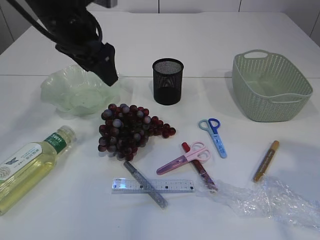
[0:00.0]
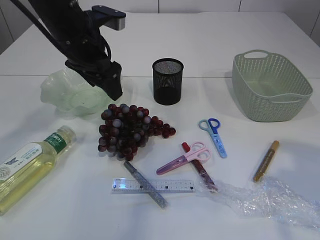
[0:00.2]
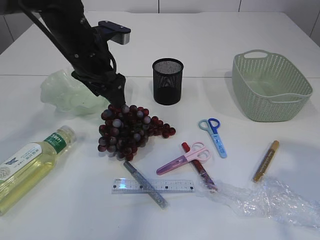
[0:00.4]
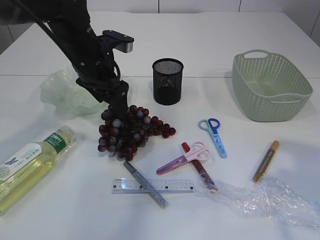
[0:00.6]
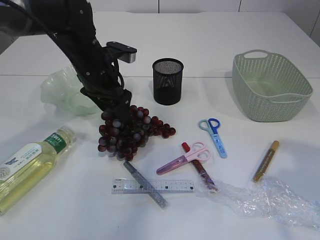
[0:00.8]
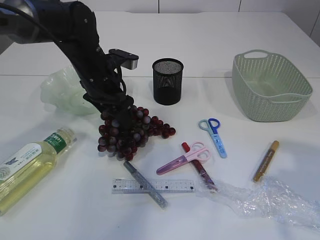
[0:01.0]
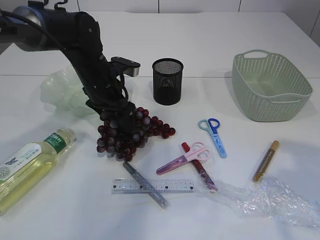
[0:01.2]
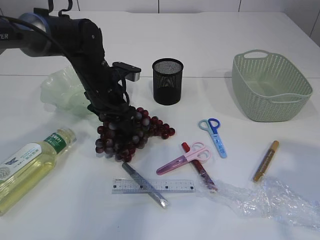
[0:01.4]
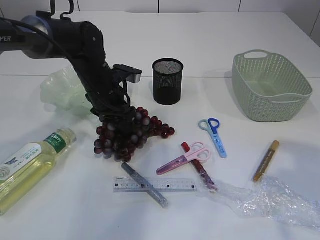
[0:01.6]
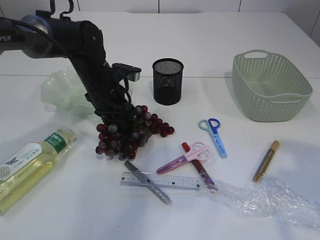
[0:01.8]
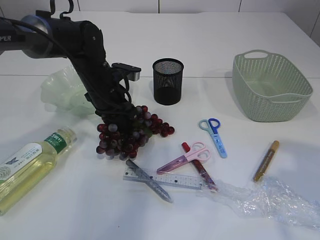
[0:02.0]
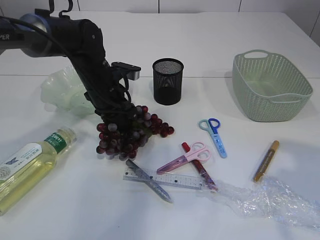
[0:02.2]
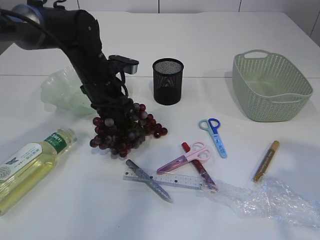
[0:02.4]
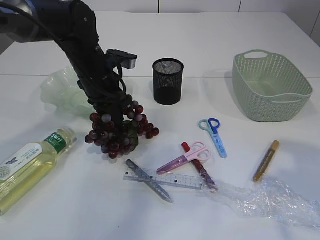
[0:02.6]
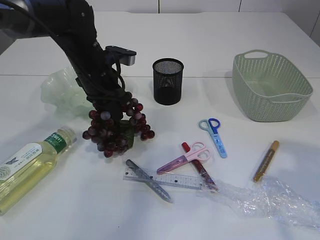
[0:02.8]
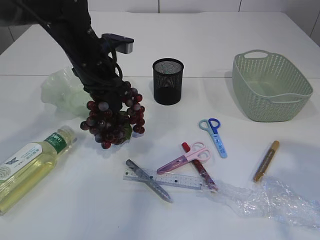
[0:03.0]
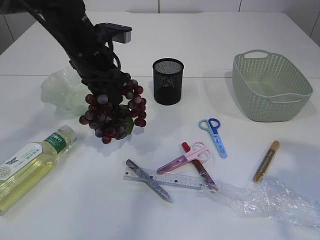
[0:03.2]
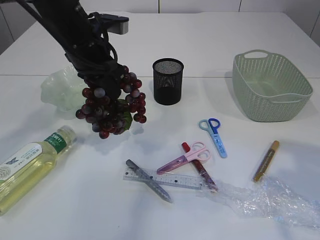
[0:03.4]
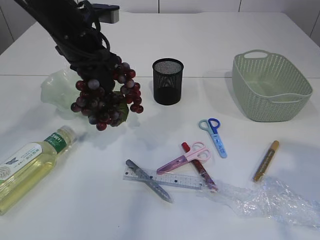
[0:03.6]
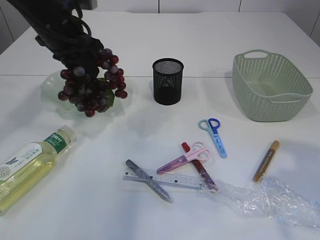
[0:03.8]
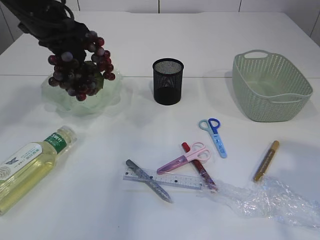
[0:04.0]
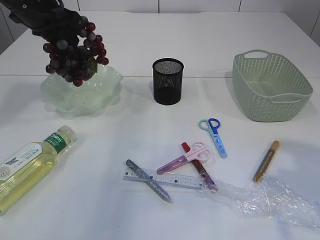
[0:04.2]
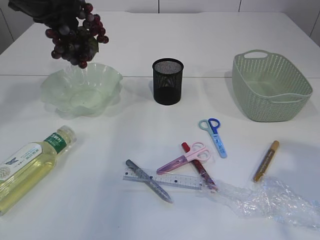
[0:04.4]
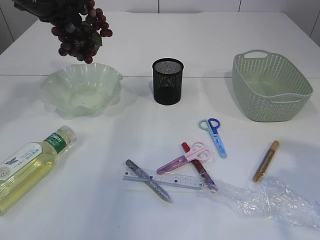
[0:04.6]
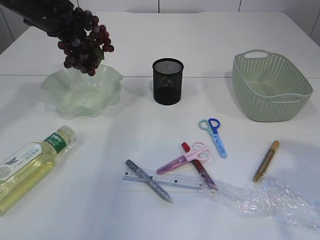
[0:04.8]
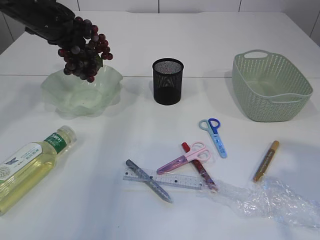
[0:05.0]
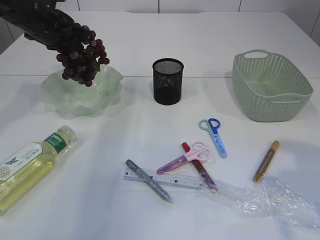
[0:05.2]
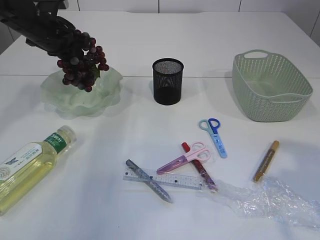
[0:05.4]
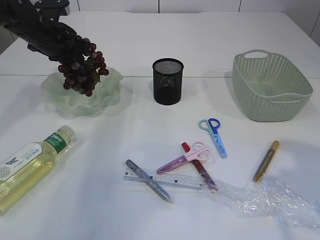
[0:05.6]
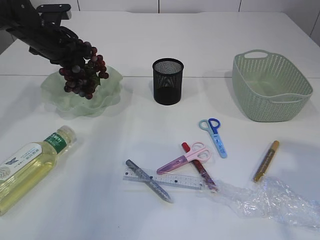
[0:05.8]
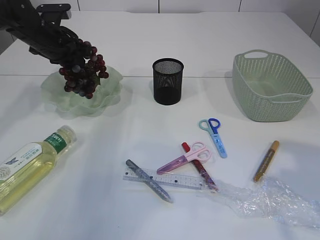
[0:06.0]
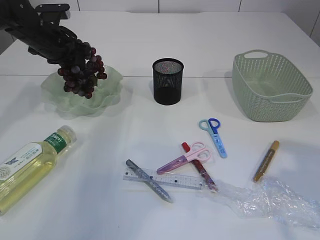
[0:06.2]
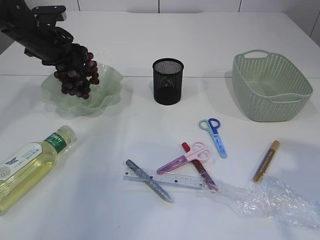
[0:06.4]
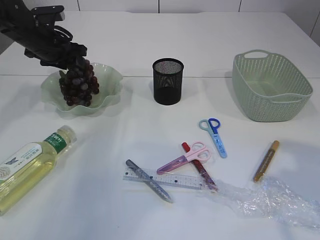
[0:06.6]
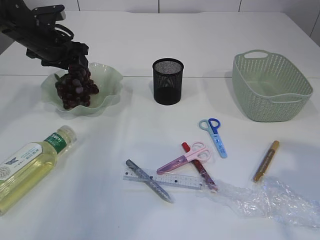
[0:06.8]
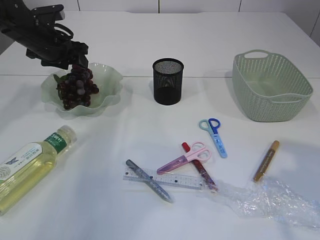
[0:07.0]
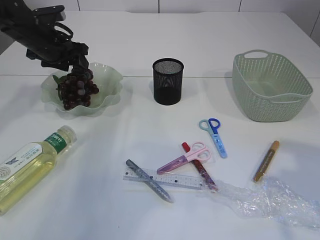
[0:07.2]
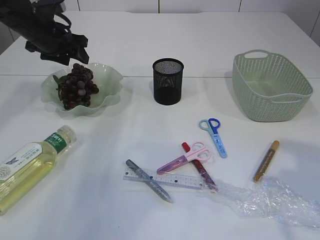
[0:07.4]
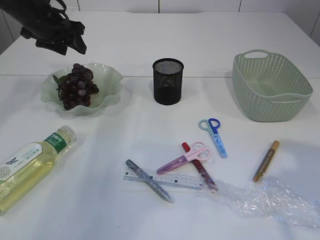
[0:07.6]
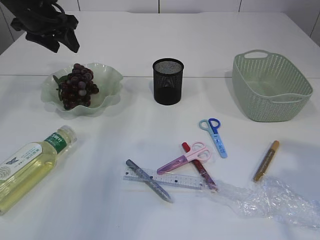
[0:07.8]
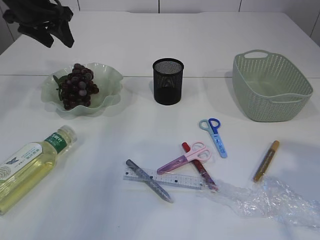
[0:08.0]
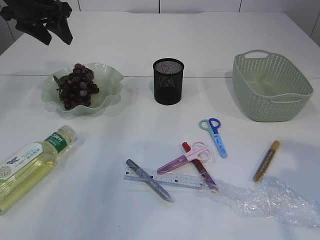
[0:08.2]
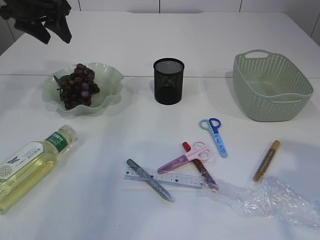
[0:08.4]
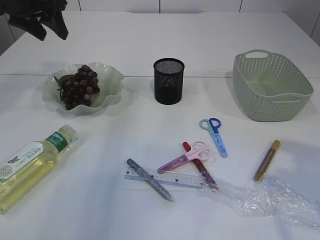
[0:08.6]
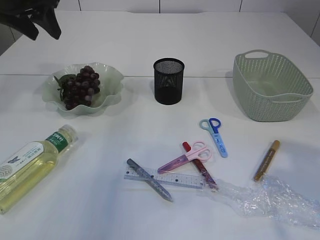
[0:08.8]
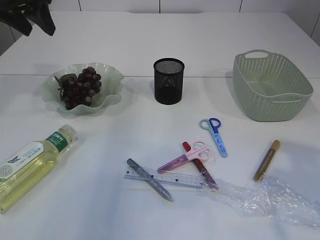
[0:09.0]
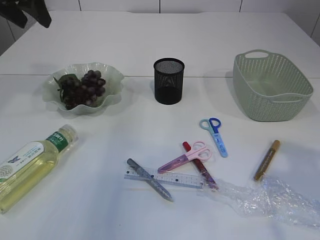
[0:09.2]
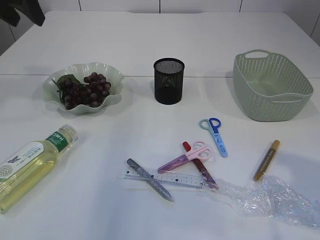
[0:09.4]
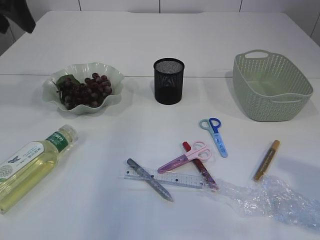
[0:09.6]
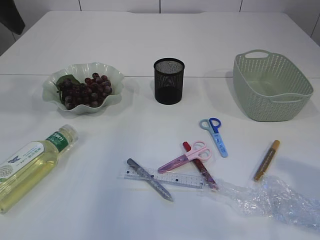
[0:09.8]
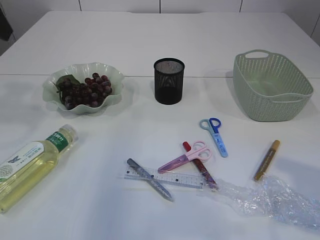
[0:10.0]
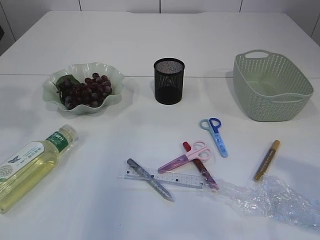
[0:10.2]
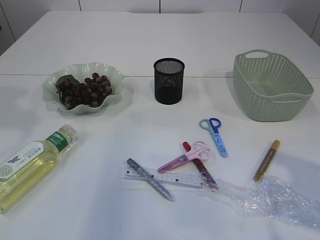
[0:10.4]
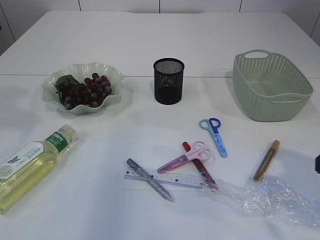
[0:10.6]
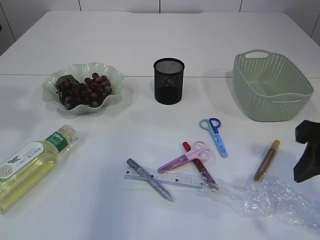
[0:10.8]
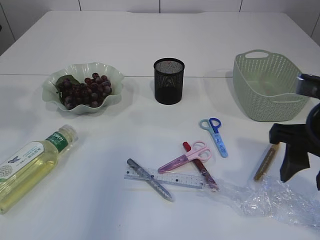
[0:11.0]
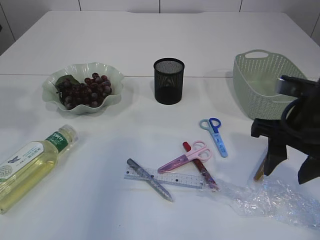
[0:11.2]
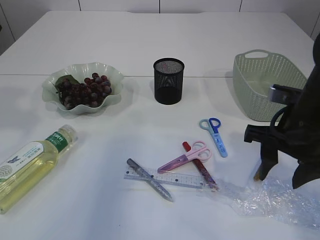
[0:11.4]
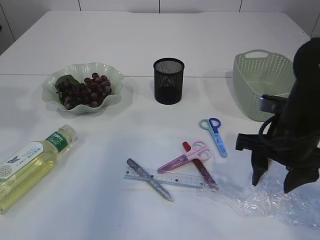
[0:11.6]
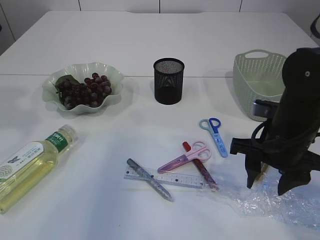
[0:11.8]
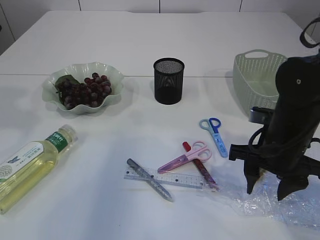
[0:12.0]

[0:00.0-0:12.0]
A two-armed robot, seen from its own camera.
Step, 0:00.0 to 0:03.4: Pick up the grapes.
Step, 0:03.6 to 0:07.4: Place the grapes in the plate.
0:00.0 to 0:01.6: The left gripper is displaced downward by approximately 15 cm.
0:01.6 to 0:03.0: The left gripper shifts some 5 cm upward, and closes.
0:03.0 to 0:04.4: The left gripper shifts roughly 15 cm upward and to the left.
0:04.4 to 0:06.0: The left gripper travels downward and forward by about 10 cm.
0:06.0 to 0:07.6: The left gripper opens.
0:07.6 to 0:09.0: The left gripper goes roughly 10 cm upward and backward.
0:09.0 to 0:10.4: The left gripper moves backward, some 15 cm.
0:10.4 to 0:12.0: The right gripper moves downward, forward and to the left, roughly 20 cm.

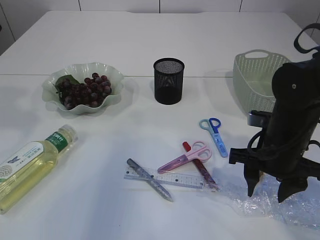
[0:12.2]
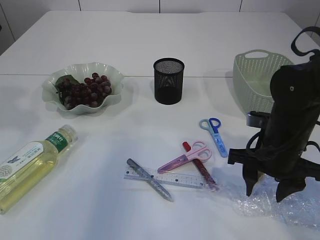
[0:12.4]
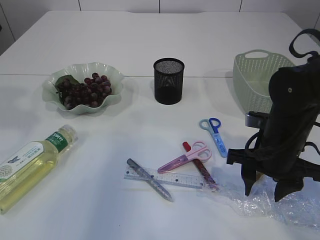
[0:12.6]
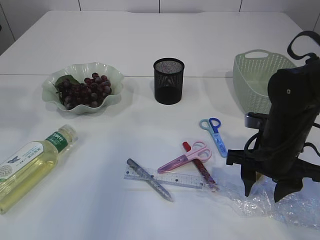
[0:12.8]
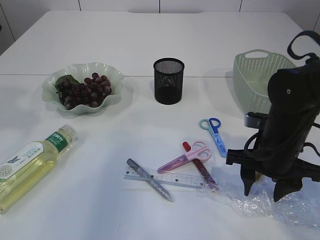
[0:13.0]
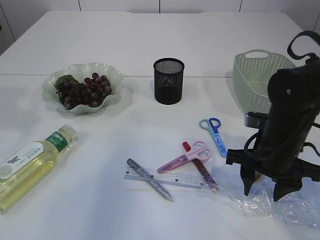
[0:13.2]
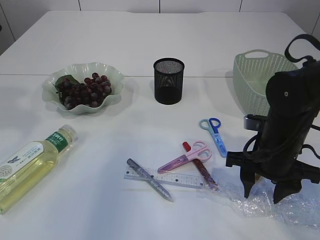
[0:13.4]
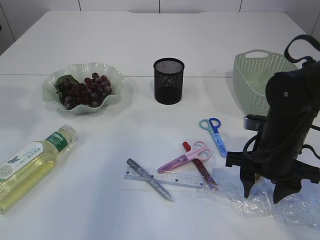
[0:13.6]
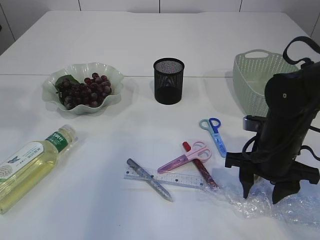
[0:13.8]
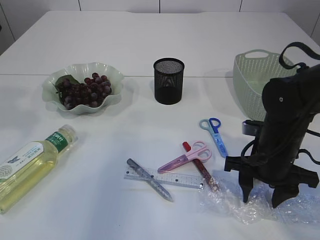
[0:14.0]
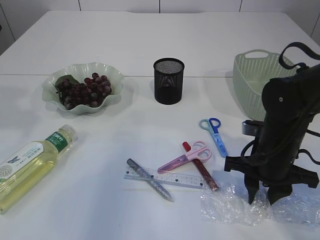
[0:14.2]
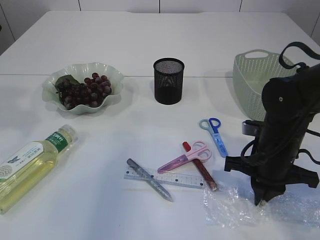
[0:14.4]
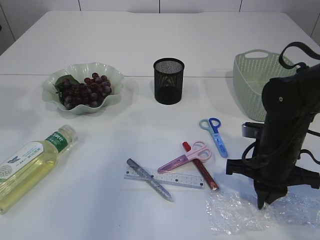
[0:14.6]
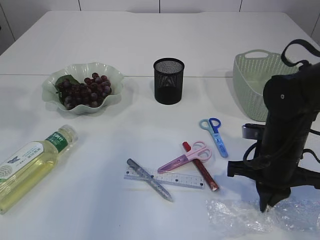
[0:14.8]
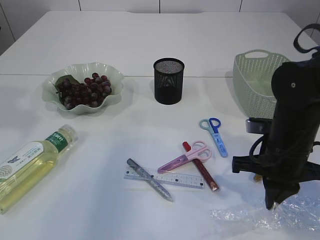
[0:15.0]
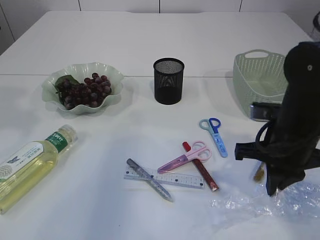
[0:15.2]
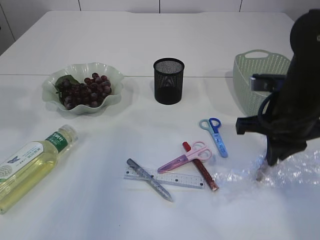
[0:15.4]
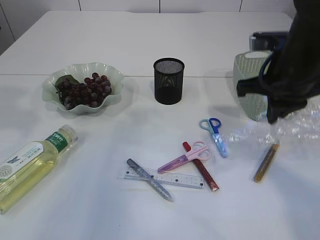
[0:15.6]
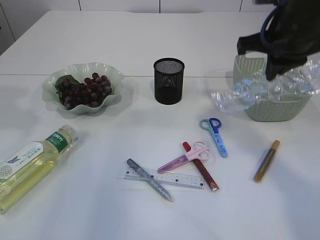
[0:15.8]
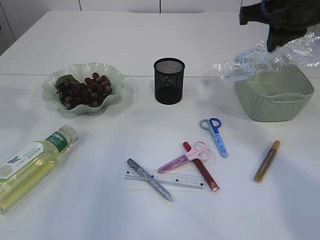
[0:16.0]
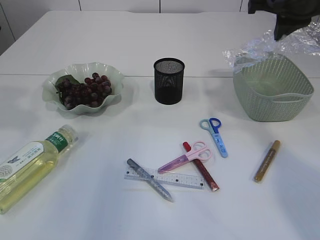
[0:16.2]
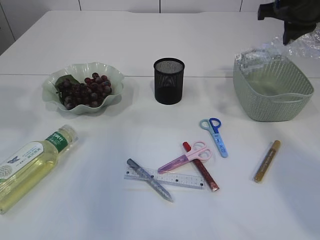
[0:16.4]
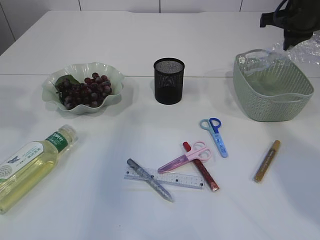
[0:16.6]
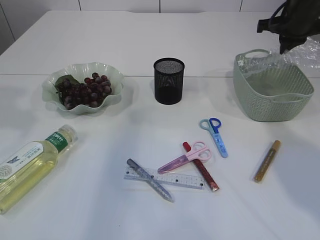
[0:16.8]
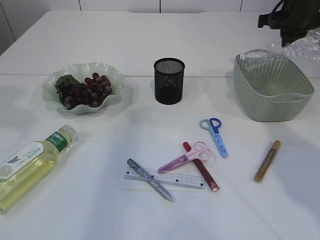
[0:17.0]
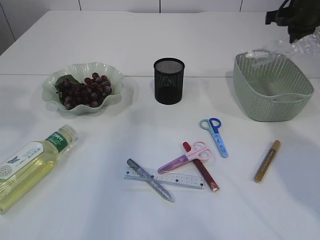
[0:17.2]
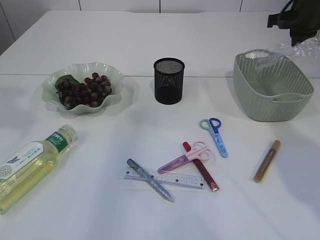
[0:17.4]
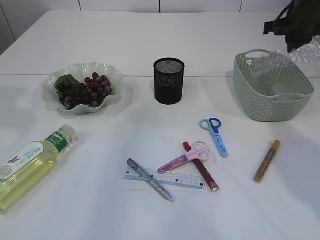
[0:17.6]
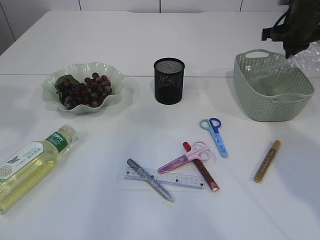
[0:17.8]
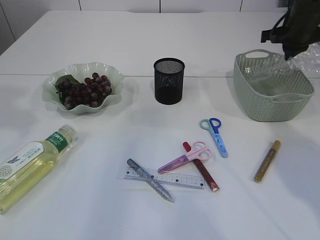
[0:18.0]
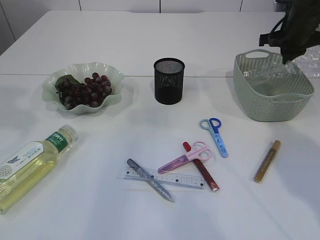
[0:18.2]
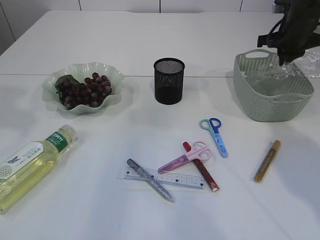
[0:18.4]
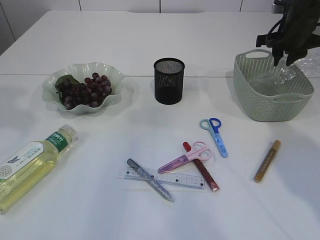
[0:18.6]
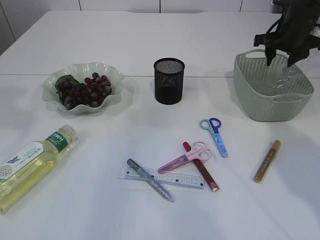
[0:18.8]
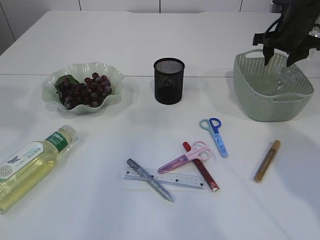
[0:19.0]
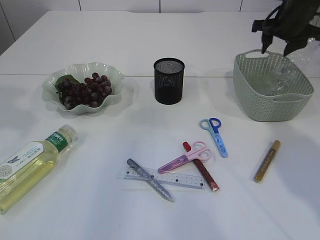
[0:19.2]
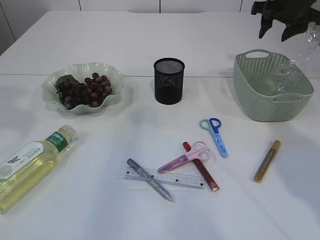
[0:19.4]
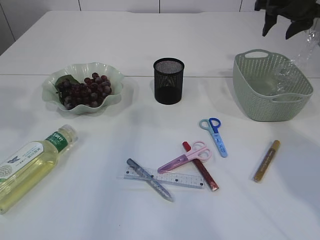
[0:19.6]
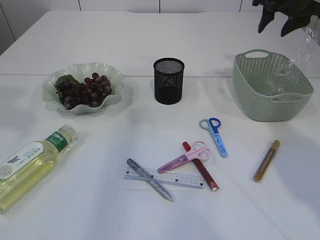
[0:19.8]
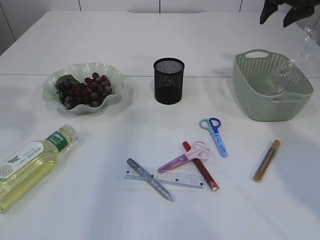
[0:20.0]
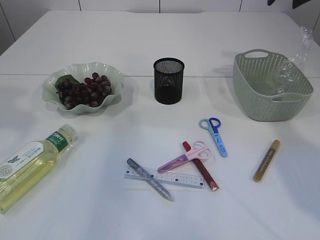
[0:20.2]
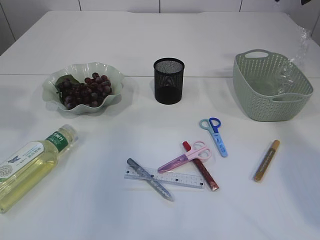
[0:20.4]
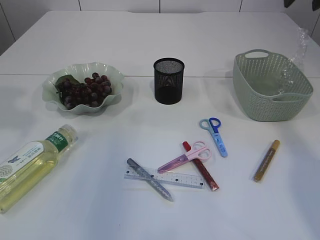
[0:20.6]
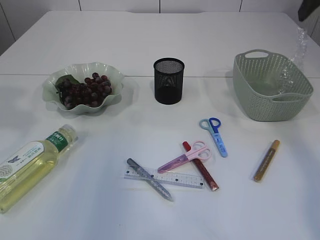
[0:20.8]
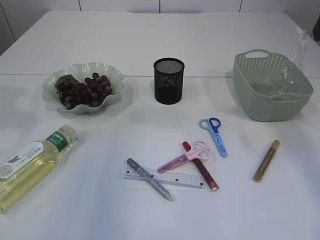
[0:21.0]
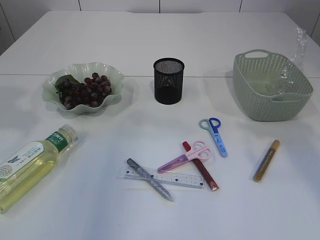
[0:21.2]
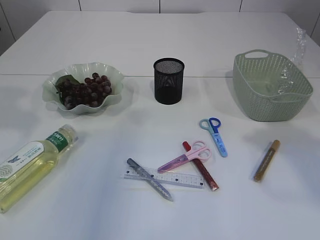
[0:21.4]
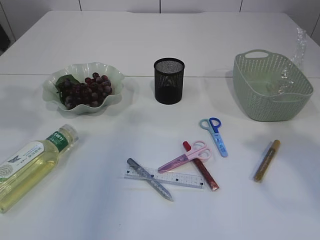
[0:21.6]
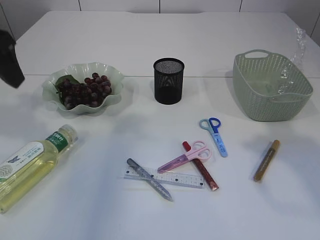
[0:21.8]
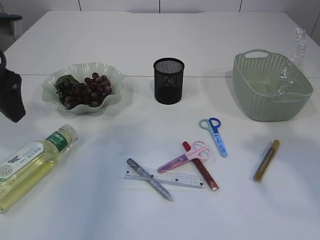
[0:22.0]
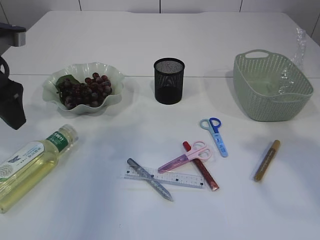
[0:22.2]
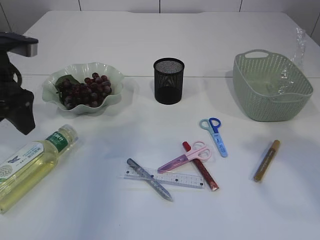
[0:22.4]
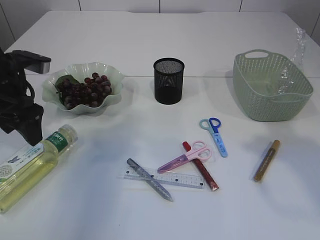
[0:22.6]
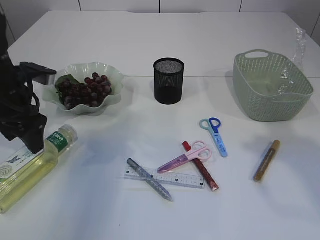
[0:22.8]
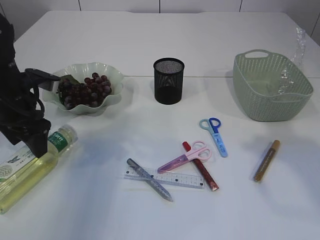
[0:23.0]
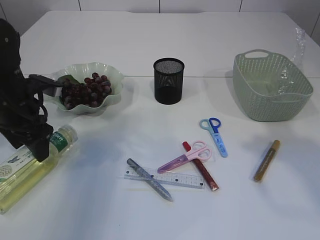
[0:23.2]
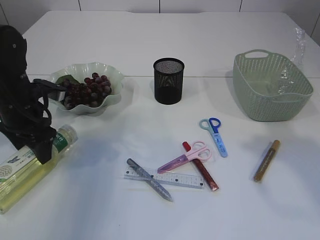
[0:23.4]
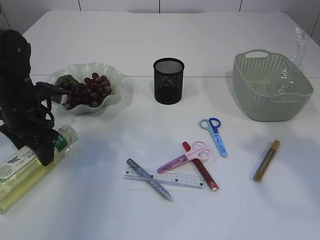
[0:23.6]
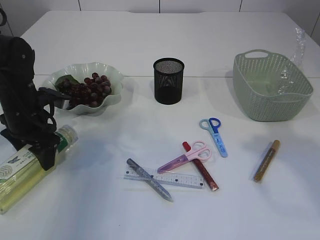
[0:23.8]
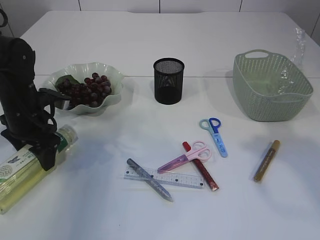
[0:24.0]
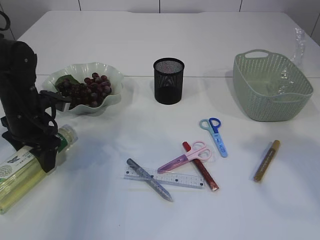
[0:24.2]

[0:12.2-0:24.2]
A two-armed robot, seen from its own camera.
Step, 0:12.2 to 0:15.4: Pick up the plastic.
Step, 0:15.6 to 0:19.2: Place the plastic in the basket.
0:12.2 to 0:13.8: There are only small adjustments of the grippers.
0:13.8 to 0:15.2: The right gripper moves approximately 5 cm, and closes up.
0:15.2 to 0:16.6: The right gripper travels forward, upward and to the right by approximately 25 cm.
0:16.6 to 0:18.2: The right gripper heads downward, covering about 5 cm.
0:18.2 to 0:19.8: The right gripper shifts some 5 cm upward, and opens its fingers.
0:19.8 to 0:21.2: The right gripper shifts some 20 cm backward.
0:21.2 to 0:22.6: The left gripper shifts approximately 15 cm downward.
0:22.6 to 0:24.2: The left gripper shifts approximately 10 cm downward.
